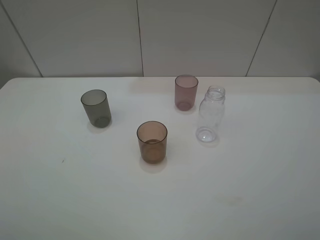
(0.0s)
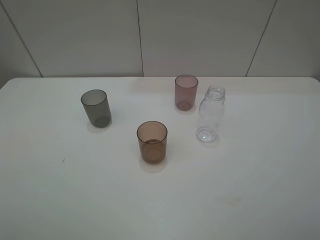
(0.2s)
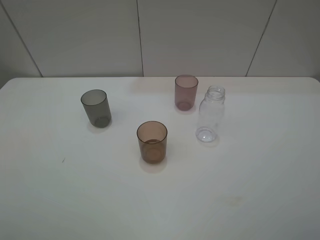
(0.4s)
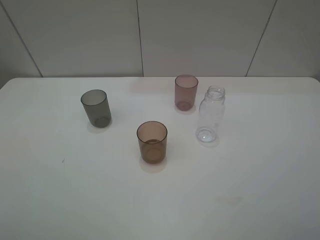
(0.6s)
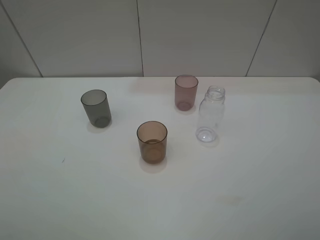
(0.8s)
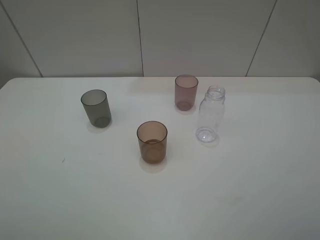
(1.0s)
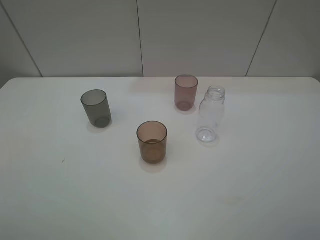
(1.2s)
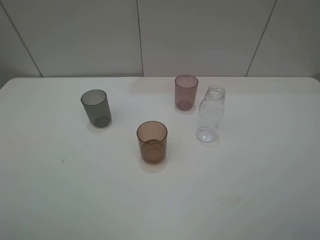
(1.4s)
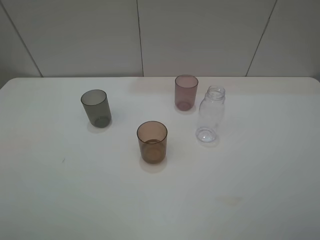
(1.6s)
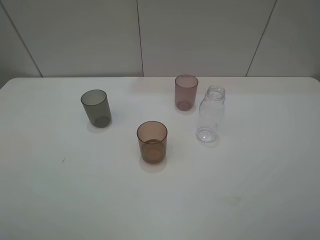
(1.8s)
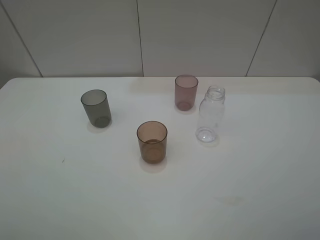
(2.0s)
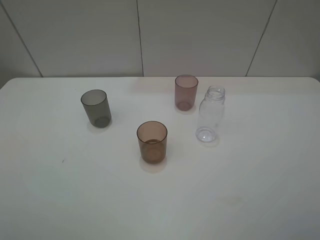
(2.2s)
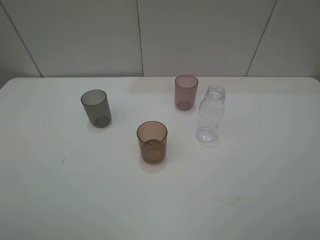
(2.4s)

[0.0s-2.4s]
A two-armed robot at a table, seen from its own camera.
Task of the whole recording: pick up the bottle filled with water and pour water into the middle cup of the three cups.
1.2s to 2.4s: Neither gripper changes place.
